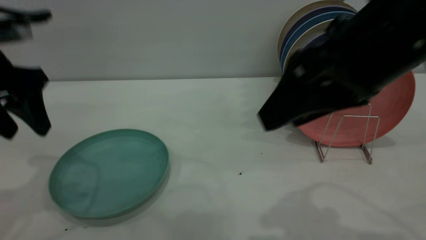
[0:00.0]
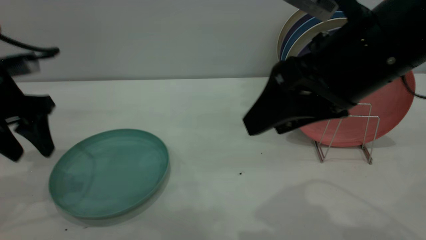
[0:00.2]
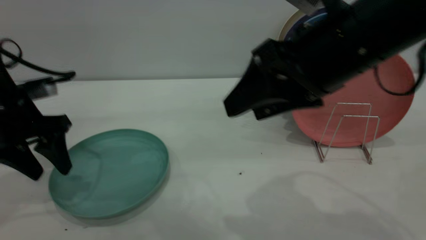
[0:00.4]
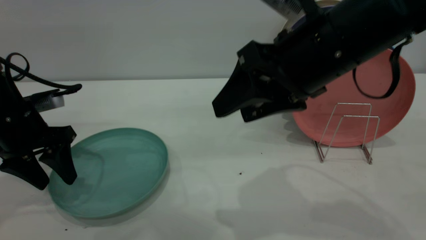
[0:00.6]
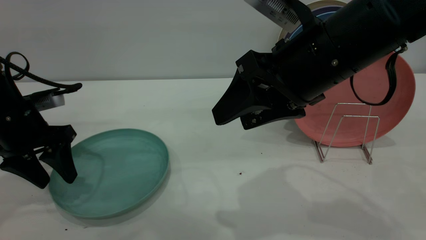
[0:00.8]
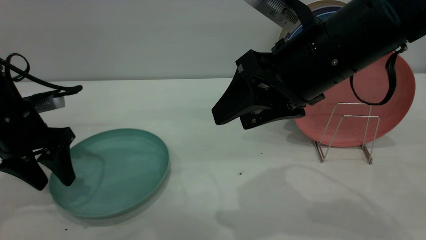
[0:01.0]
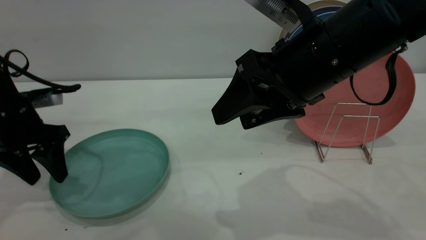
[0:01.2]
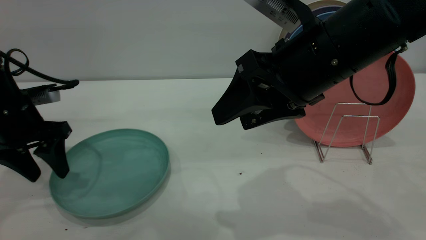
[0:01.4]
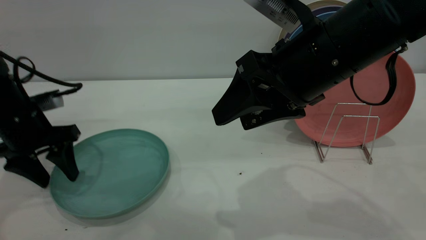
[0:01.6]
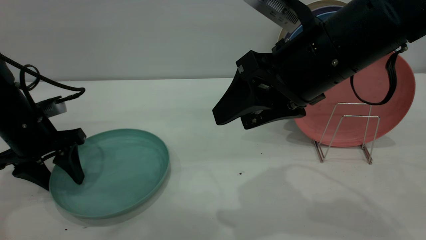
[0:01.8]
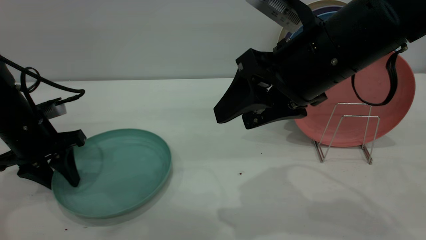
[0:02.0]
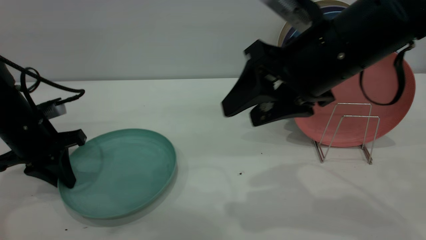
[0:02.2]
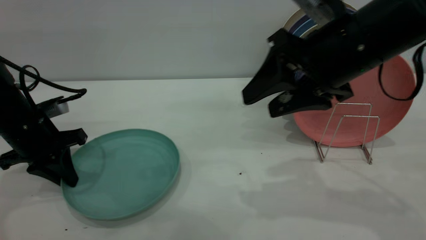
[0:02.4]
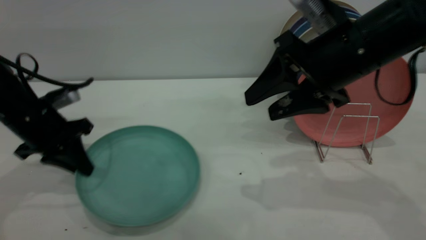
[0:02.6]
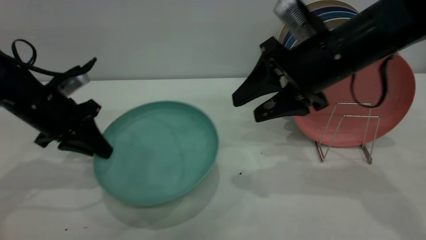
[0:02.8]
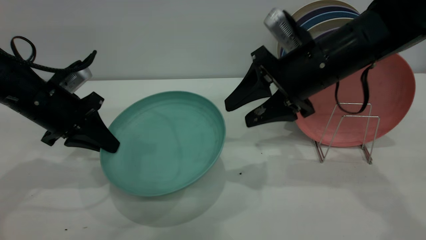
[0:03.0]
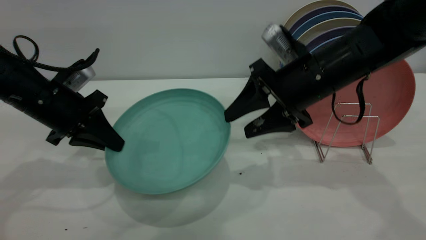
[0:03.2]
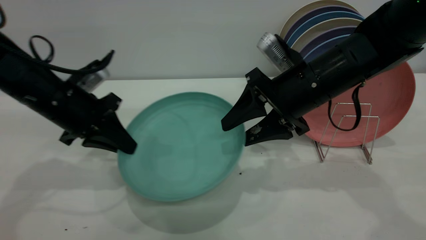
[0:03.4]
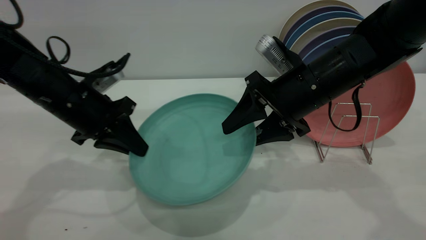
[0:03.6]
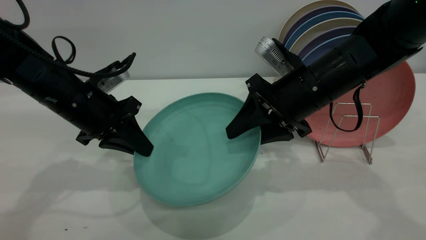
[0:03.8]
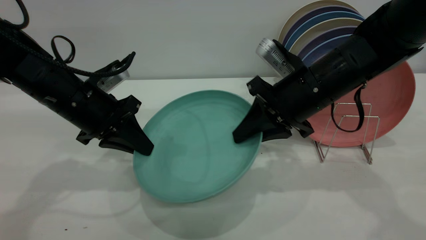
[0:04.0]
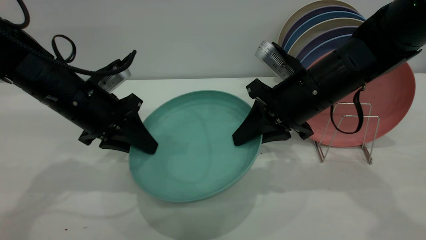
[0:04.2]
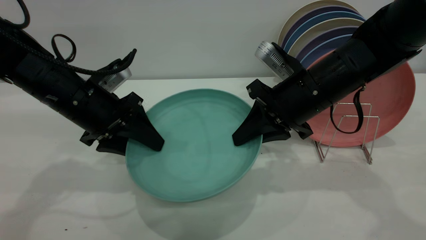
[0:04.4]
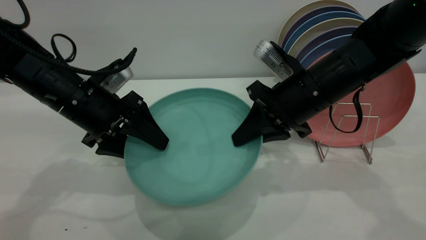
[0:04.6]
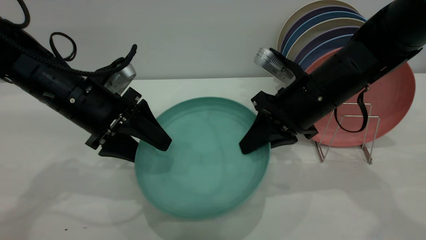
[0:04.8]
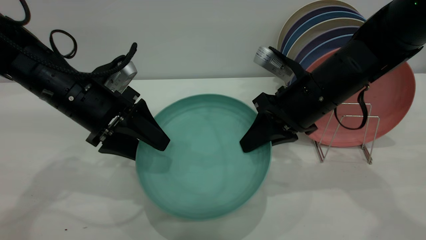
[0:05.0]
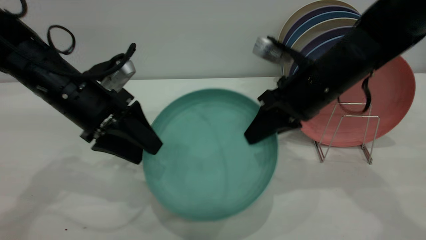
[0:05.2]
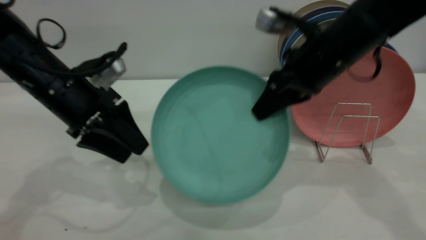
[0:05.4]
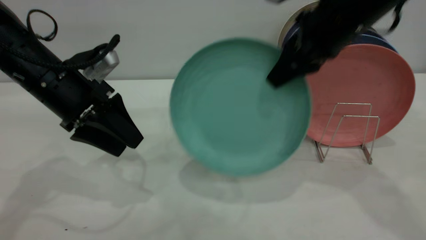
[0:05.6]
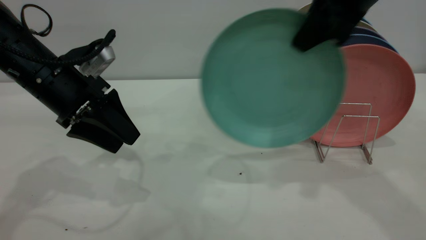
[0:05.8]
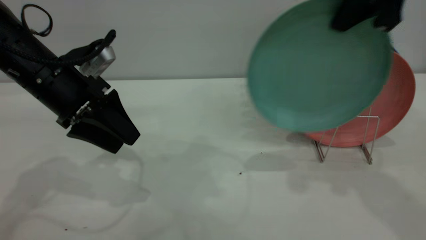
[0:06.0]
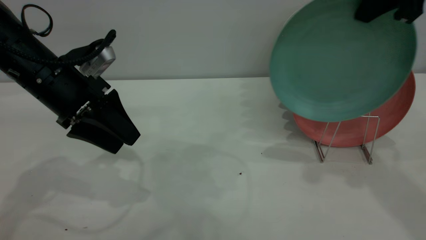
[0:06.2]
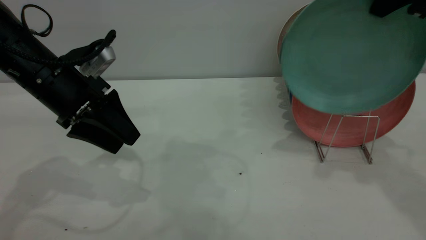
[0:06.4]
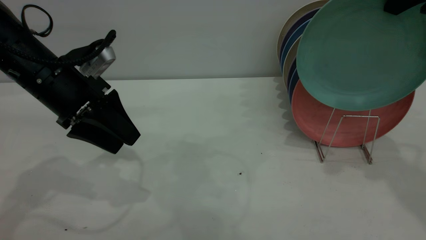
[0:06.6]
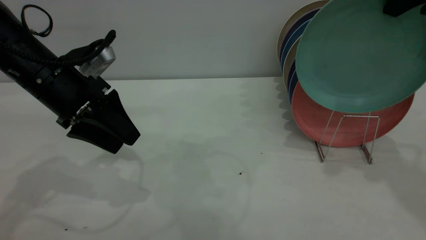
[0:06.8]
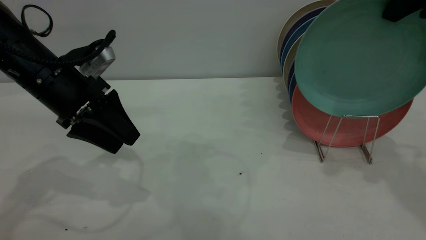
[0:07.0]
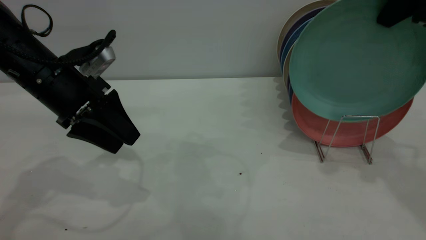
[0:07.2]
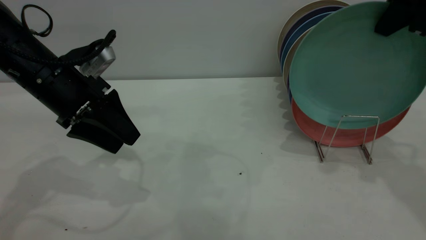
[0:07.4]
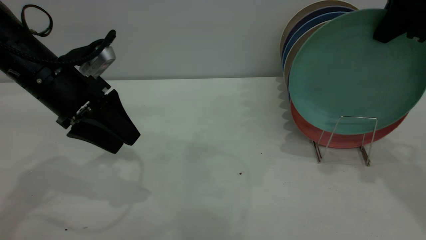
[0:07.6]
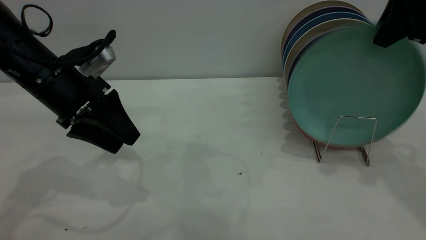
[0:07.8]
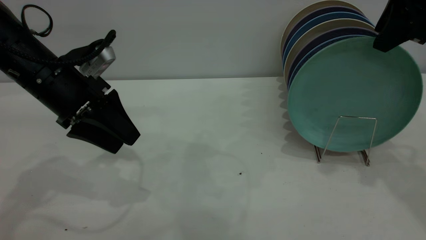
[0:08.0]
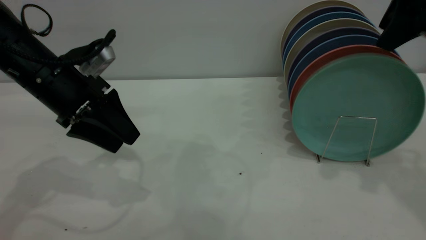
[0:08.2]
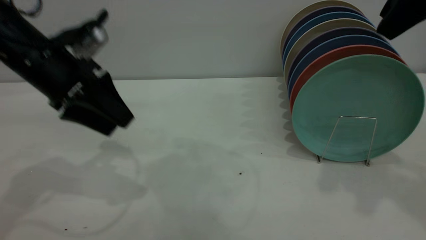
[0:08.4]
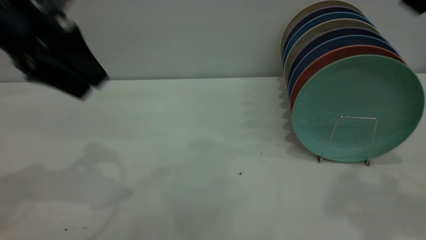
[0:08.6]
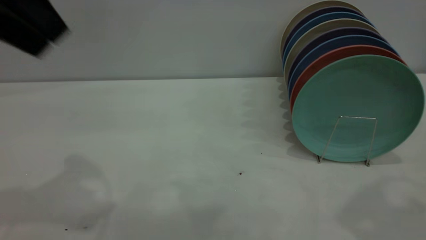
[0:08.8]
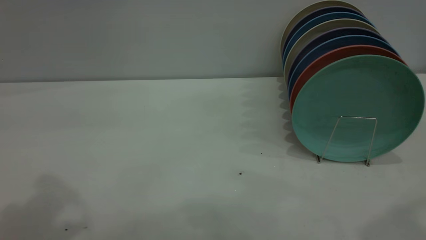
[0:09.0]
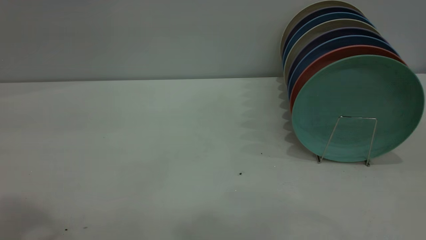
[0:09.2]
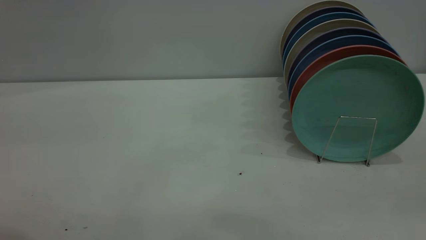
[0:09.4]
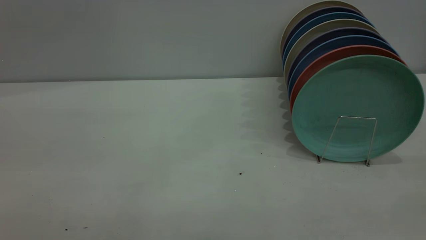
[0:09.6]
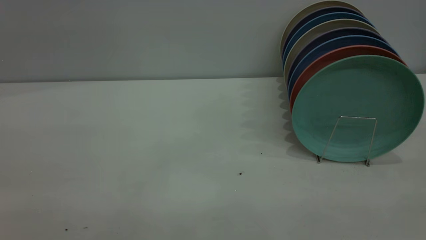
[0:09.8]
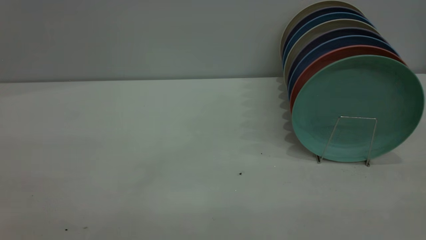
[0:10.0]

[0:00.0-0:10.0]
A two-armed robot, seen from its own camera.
Task of the whole recording: the left gripper grasp the green plate, the left gripper pass the green plate to the right gripper, and the right gripper place the green plate on the plate rack.
Step, 0:00.0 to 0:02.6: Pick up the plate with the left gripper.
Step, 0:03.0 to 0:05.4: Pass the plate from the left gripper to the right gripper.
Step, 0:05.6 to 0:08.4: Place the plate on the shelf.
0:00.0 to 0:01.4: The right gripper changes place by some 5 cm. Meanwhile the left gripper shifts about 10 cm downward.
0:01.4 to 0:02.8: The right gripper moves forward, about 5 cm. The left gripper closes its fingers.
0:02.8 to 0:04.2: The right gripper shifts by some 5 cm, and closes up. Meanwhile the left gripper moves to the right, about 5 cm, and opens its fingers.
0:04.2 to 0:05.8: The left gripper opens. The right gripper shifts approximately 15 cm upward.
0:05.8 to 0:07.2: The right gripper is displaced to the right by approximately 10 cm.
0:07.2 to 0:08.6: The left gripper goes about 10 cm upward, while the right gripper is displaced backward and upward by some 15 cm, and opens.
0:08.6 to 0:10.0: The left gripper travels backward by about 25 cm.
